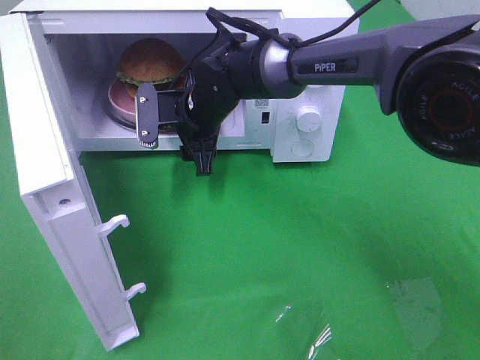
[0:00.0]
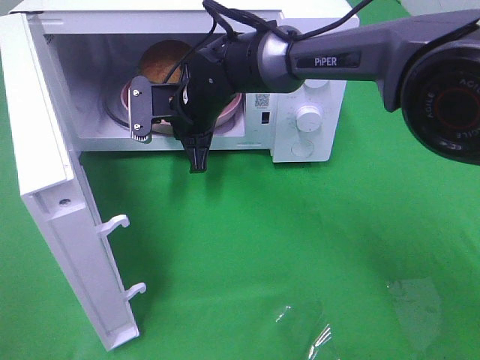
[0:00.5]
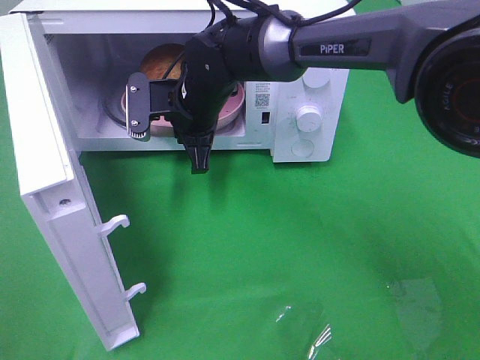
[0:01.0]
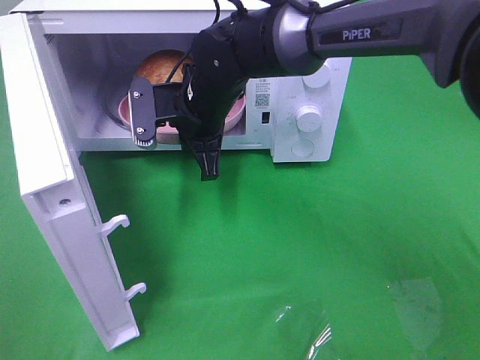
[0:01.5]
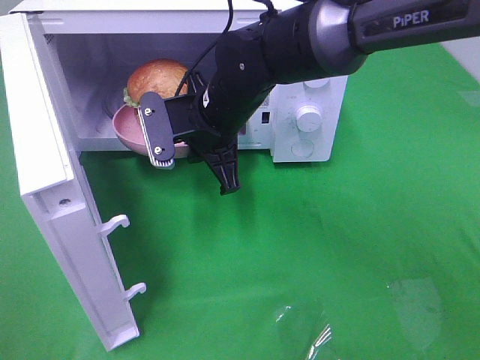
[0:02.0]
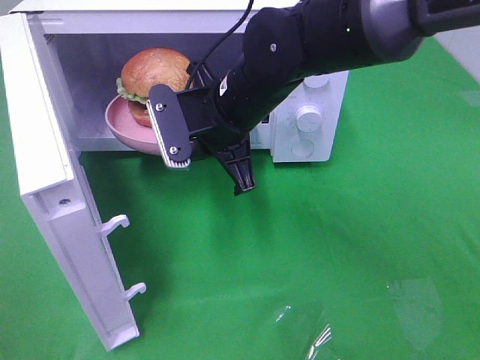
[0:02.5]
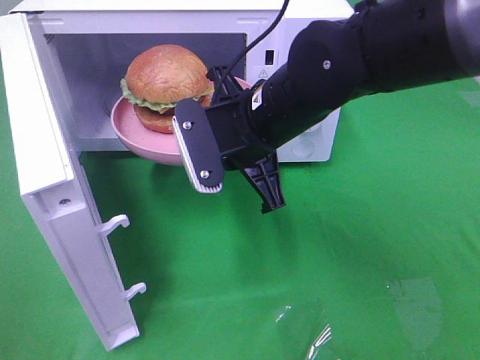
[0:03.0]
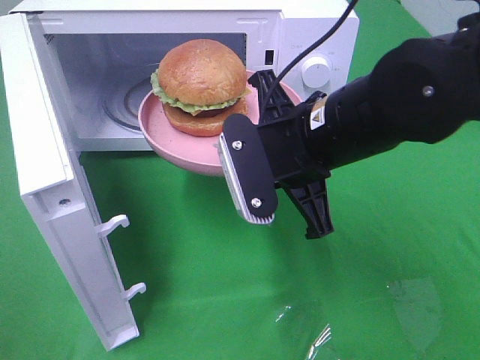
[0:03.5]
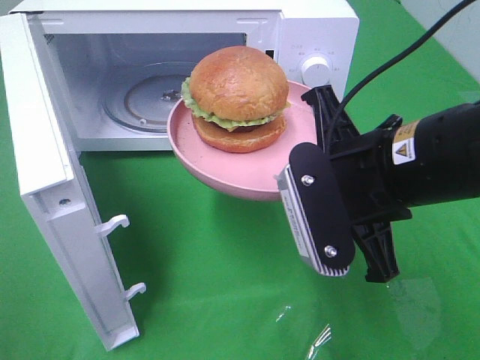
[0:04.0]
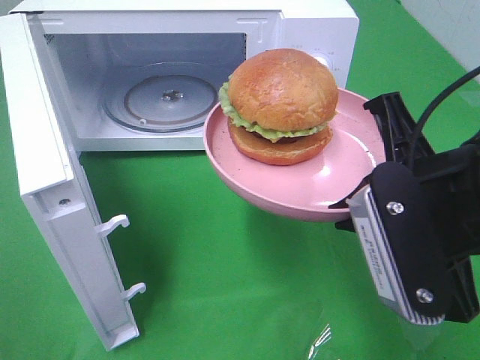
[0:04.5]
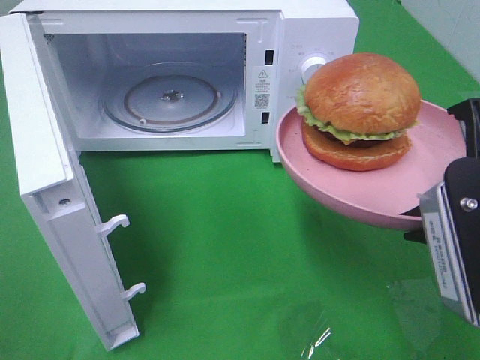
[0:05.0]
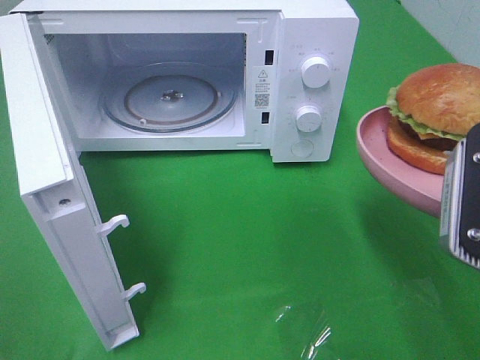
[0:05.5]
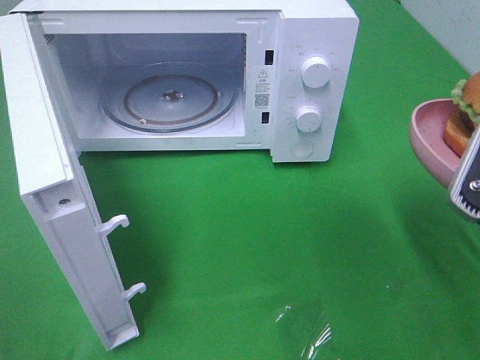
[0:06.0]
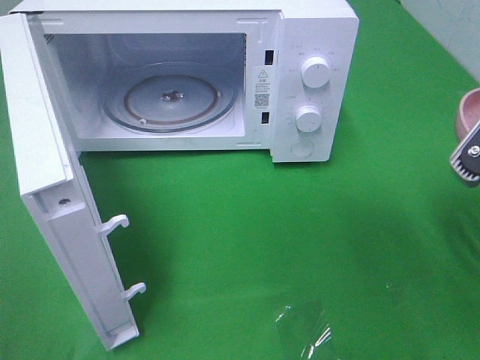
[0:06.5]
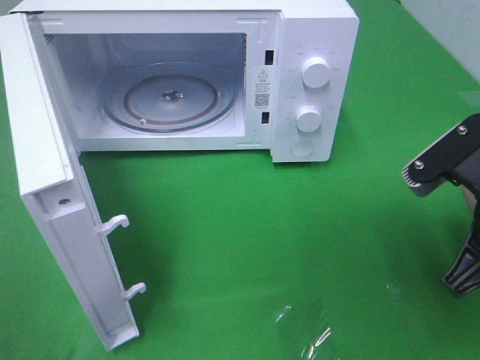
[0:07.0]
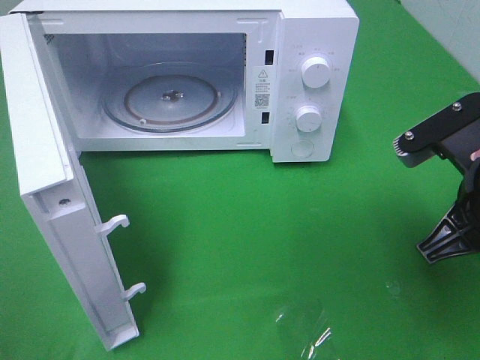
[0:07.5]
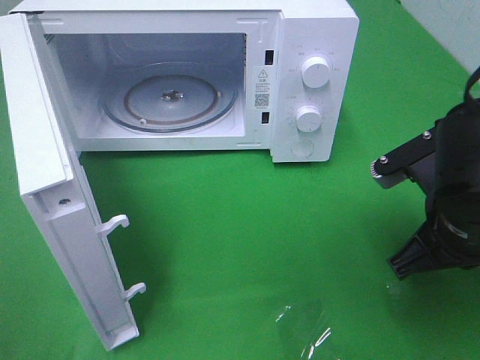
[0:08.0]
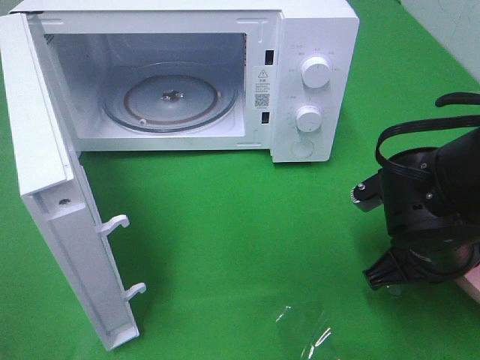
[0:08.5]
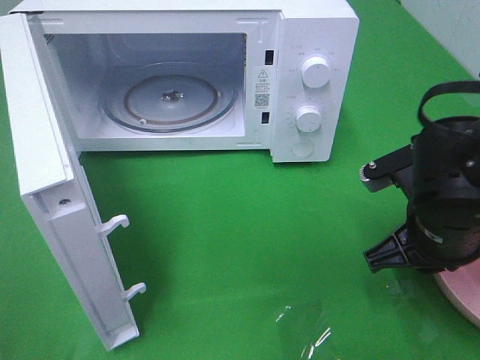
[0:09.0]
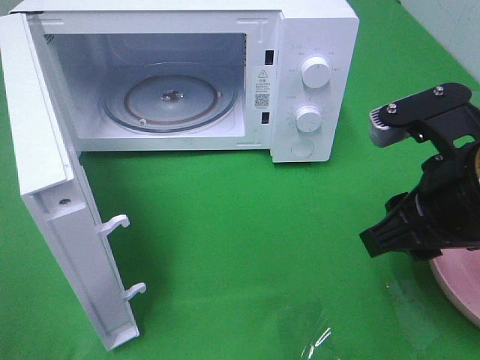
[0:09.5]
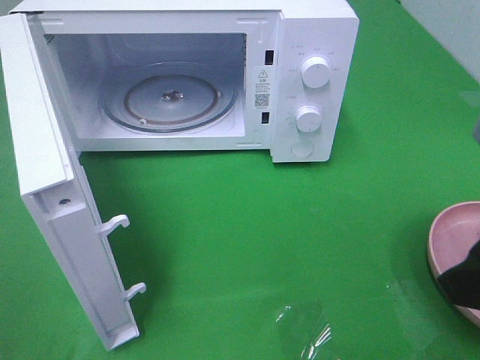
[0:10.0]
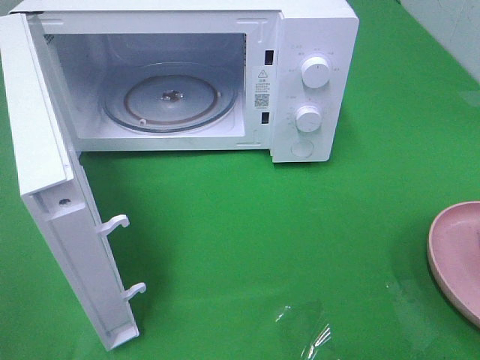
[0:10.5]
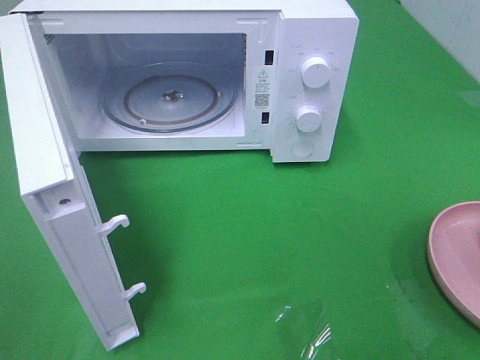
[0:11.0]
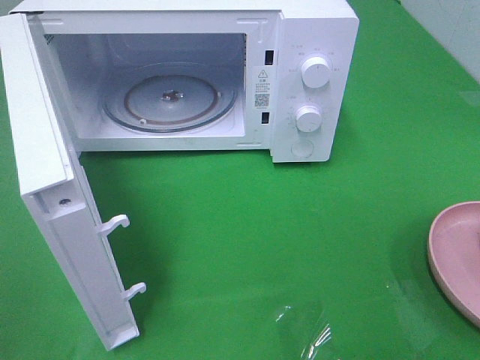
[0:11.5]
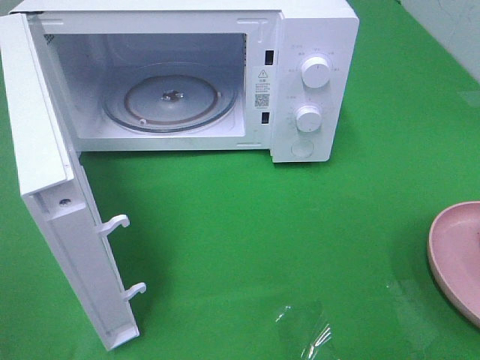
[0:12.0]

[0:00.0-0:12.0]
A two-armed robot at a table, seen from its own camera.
Task of the whole recording: Heat the burger.
Step, 0:01.0 to 0:09.0: Right hand: place the plate on the table.
0:00.0 to 0:02.0: The right gripper travels backward by about 5 cm, and closes up.
0:02.0 to 0:04.0: The right gripper travels backward and to the right by approximately 20 cm.
0:04.0 to 0:06.0: The right gripper moves to the right and backward, approximately 10 cm.
0:06.0 to 0:08.0: The right gripper travels downward and forward by roughly 10 cm.
0:08.0 to 0:10.0: The right gripper goes roughly 15 cm upward and backward, and opens.
0:10.0 to 0:12.0: The right gripper goes about 15 cm backward and to the right.

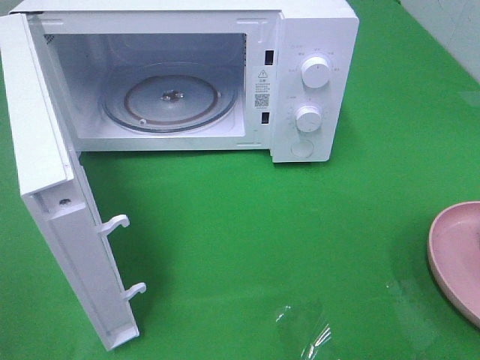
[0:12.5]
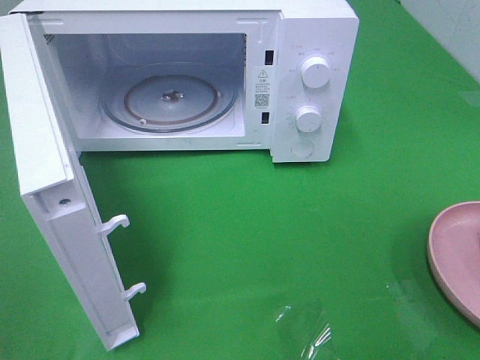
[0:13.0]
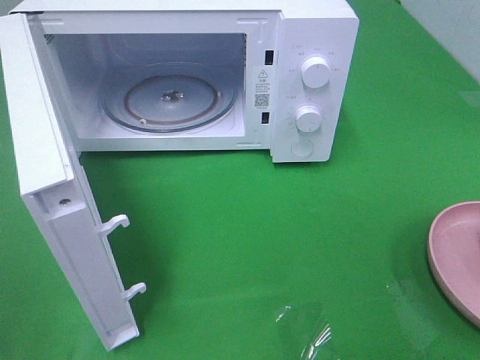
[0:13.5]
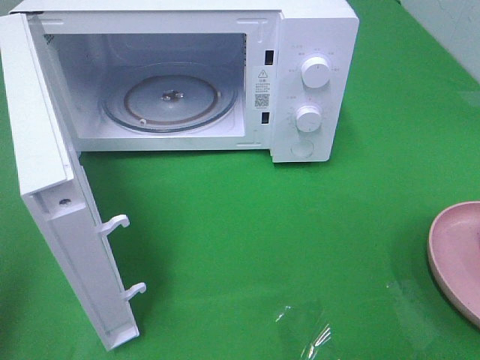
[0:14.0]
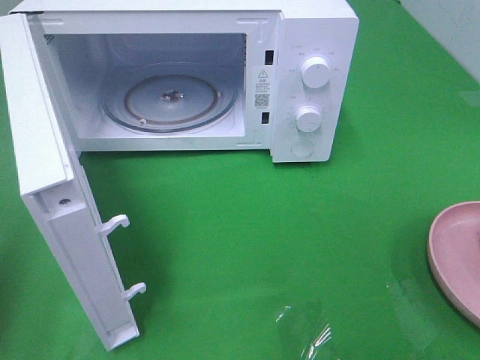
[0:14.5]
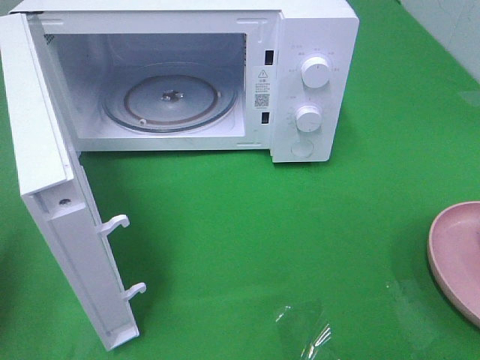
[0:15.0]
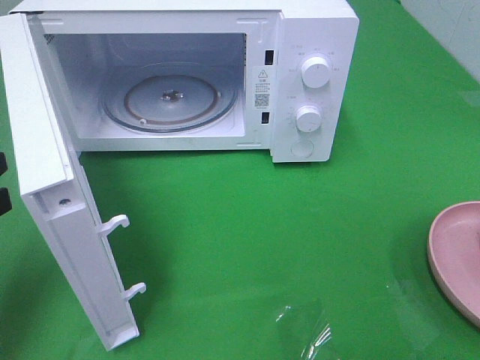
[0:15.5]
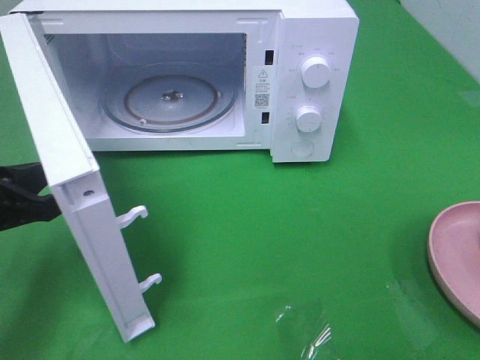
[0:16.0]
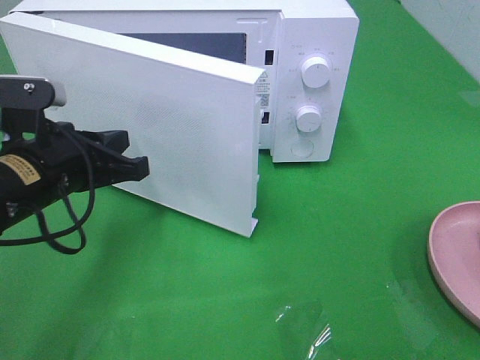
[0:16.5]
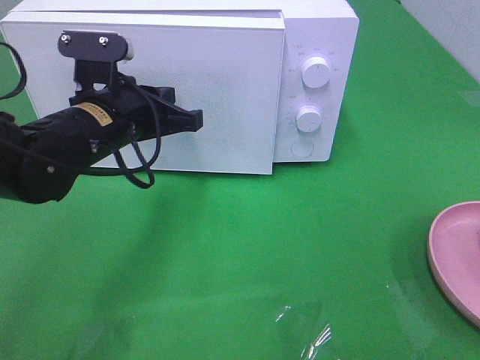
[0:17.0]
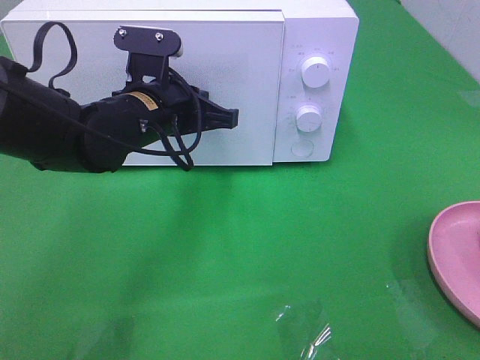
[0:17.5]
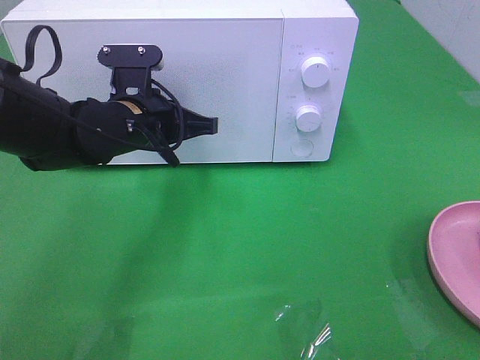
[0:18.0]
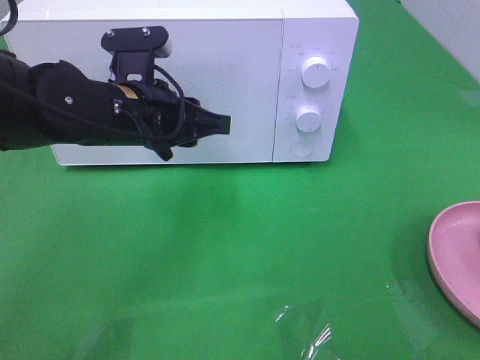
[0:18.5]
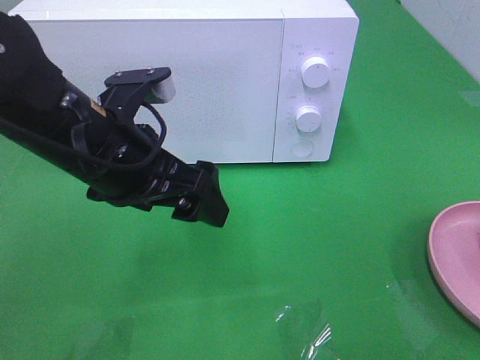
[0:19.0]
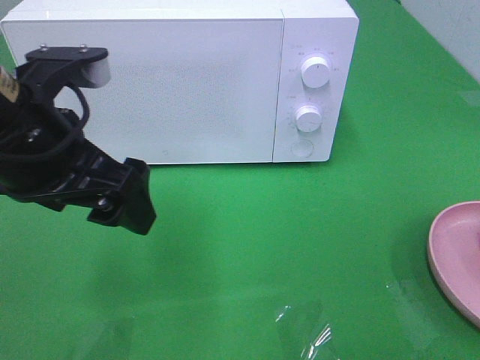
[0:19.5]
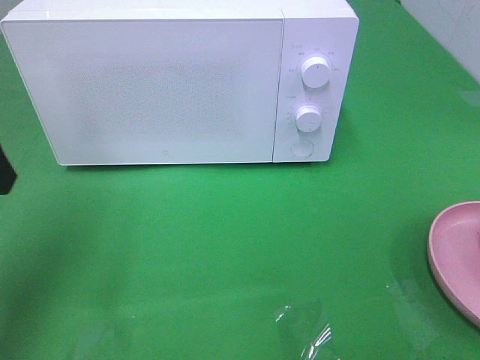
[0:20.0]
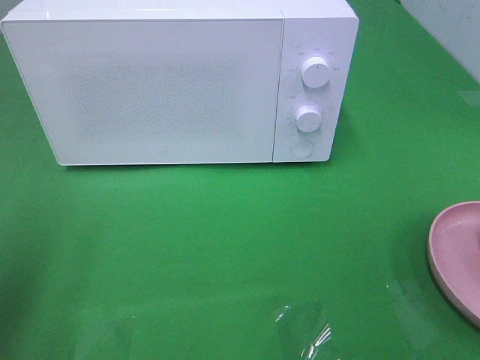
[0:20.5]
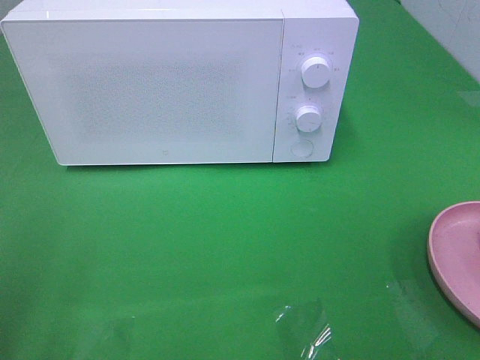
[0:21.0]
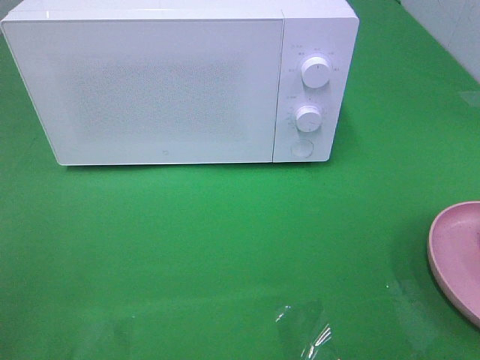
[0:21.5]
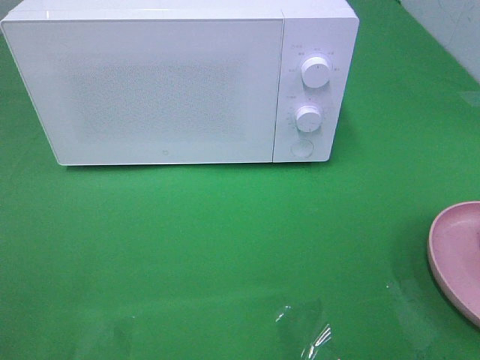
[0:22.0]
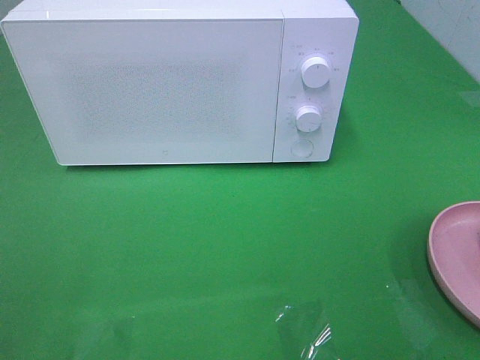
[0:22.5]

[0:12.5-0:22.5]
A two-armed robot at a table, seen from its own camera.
Task of the whole recording: Heat the burger.
Step, 0:12.5 to 0:18.5: Left hand: close the microwave door.
0:14.5 to 0:16.5: The left gripper travels to the right, forward and downward by roughly 20 cm.
0:16.5 to 0:18.5: The left gripper heads to the right and forward, covering roughly 10 cm, and opens.
0:18.5 to 0:20.5: The left gripper heads to the left, backward and upward, covering some 30 cm, and opens its fingers.
0:20.5 to 0:22.5: The left gripper moves backward, some 15 cm.
